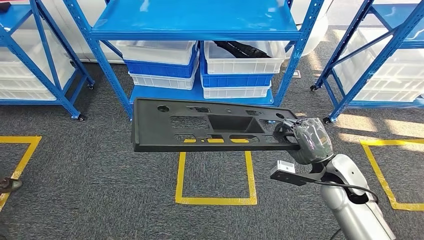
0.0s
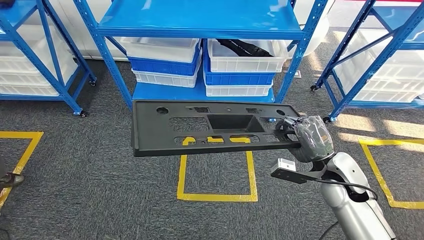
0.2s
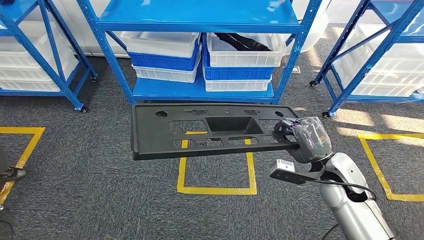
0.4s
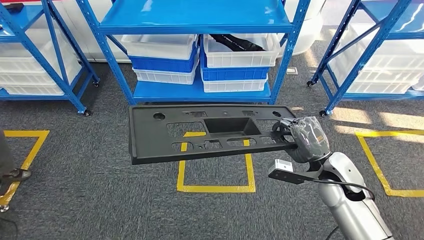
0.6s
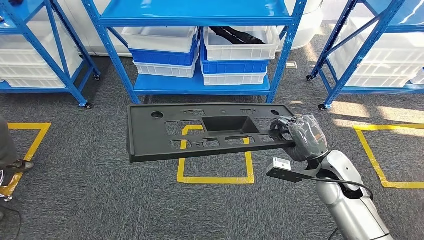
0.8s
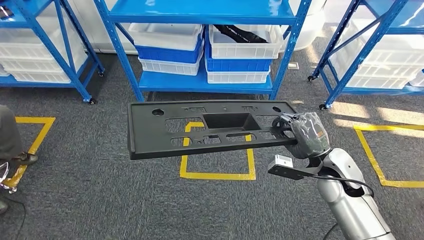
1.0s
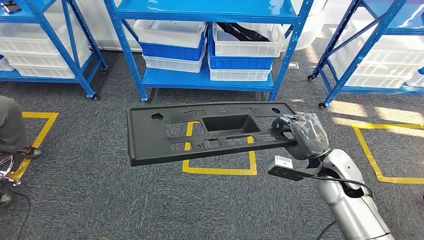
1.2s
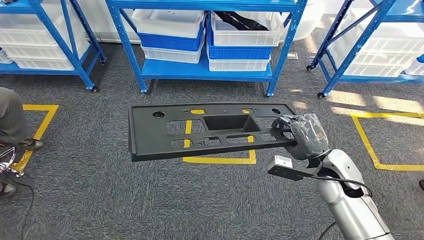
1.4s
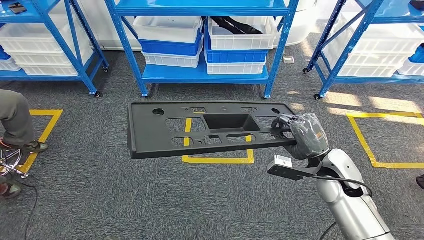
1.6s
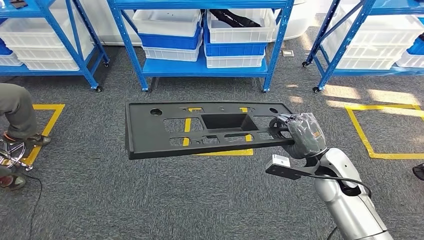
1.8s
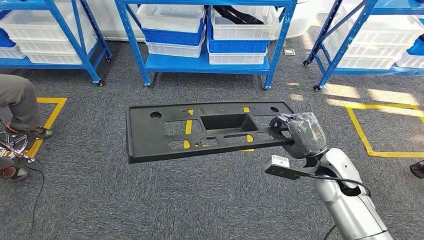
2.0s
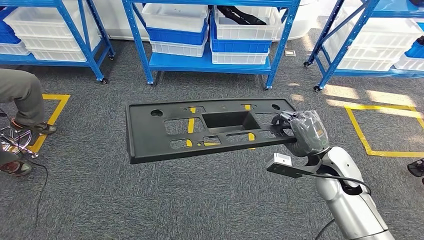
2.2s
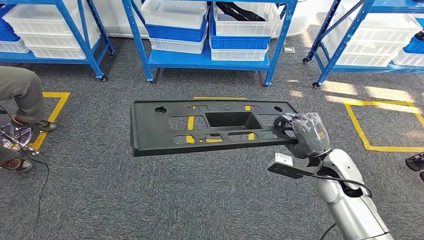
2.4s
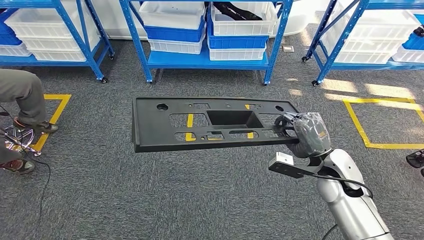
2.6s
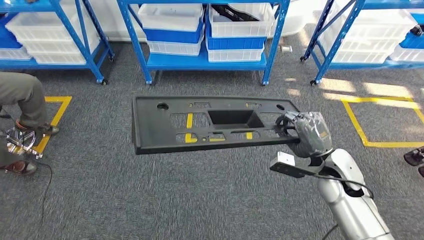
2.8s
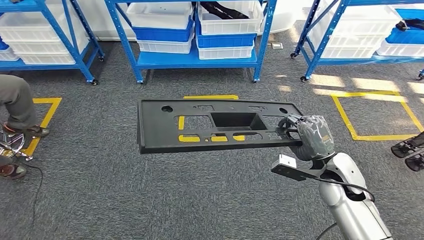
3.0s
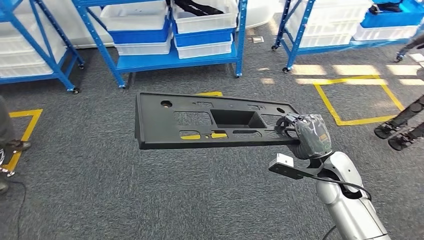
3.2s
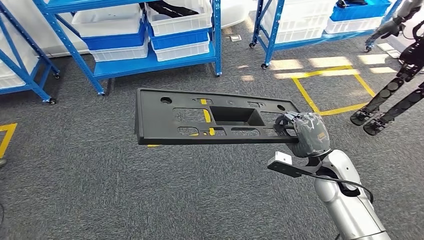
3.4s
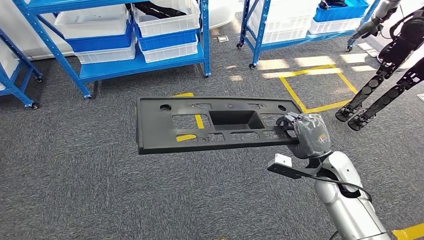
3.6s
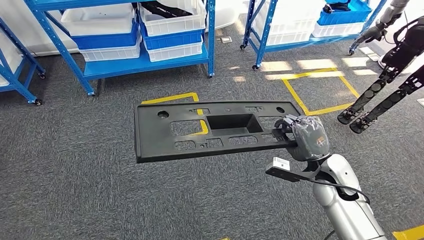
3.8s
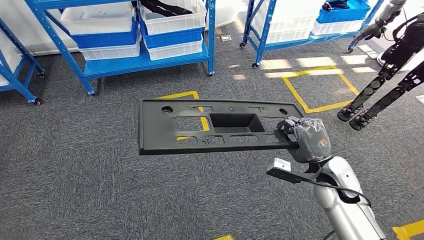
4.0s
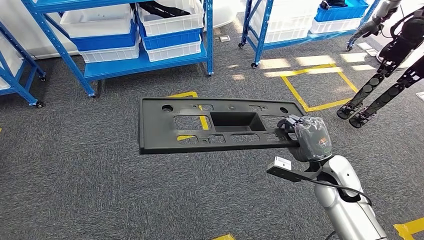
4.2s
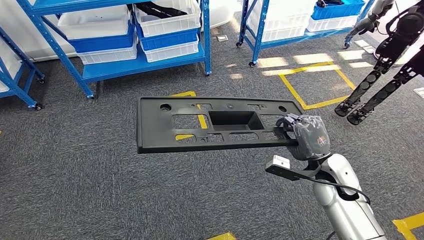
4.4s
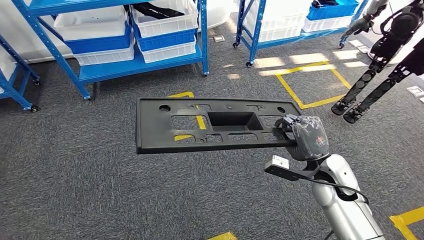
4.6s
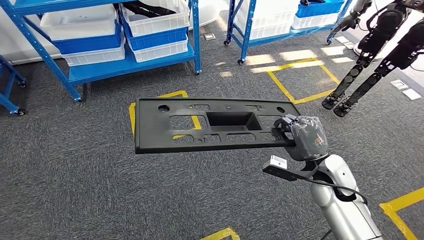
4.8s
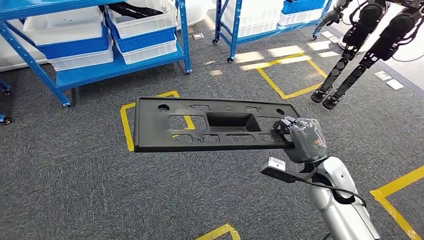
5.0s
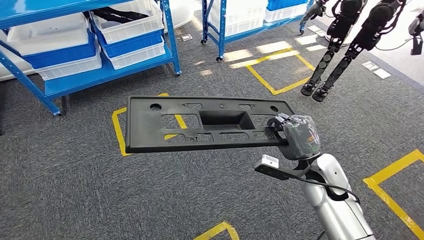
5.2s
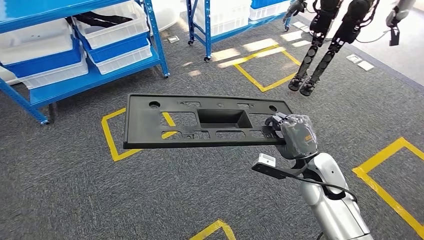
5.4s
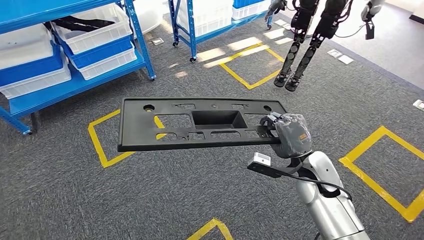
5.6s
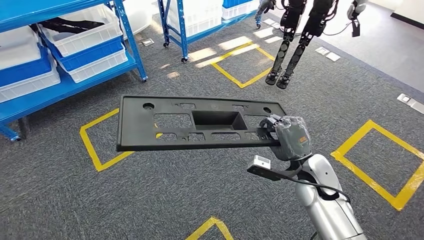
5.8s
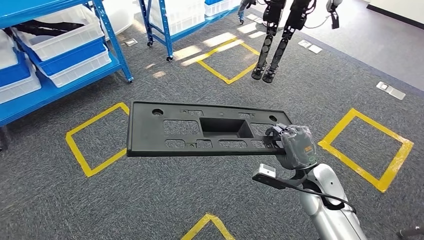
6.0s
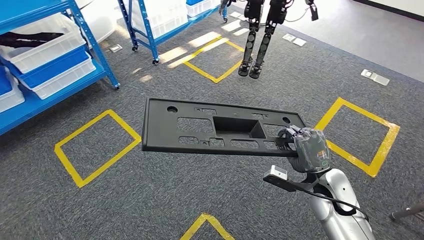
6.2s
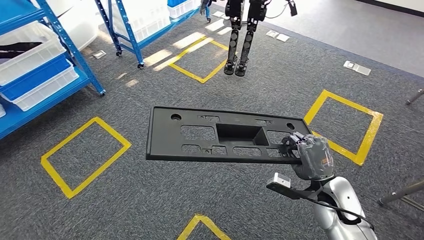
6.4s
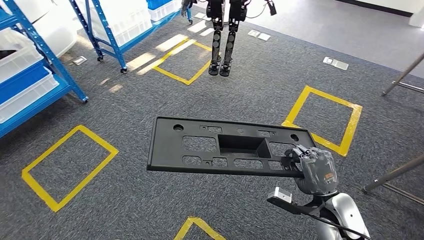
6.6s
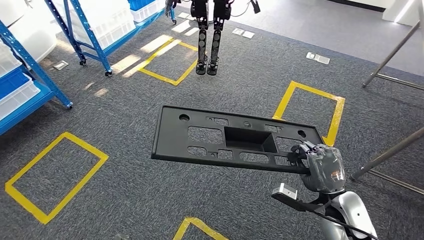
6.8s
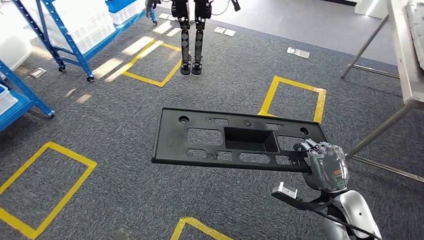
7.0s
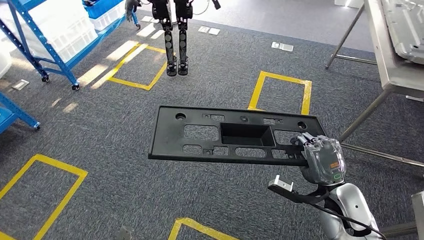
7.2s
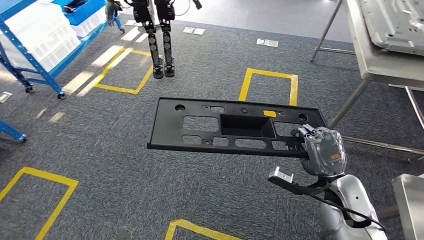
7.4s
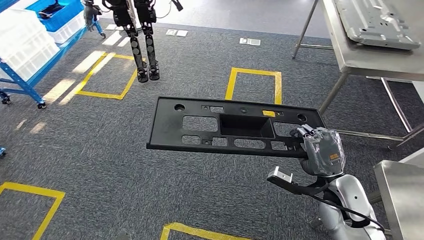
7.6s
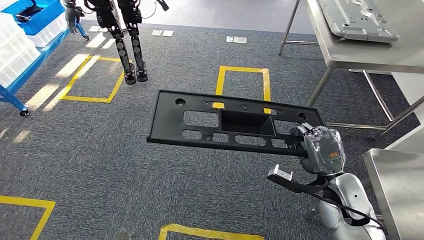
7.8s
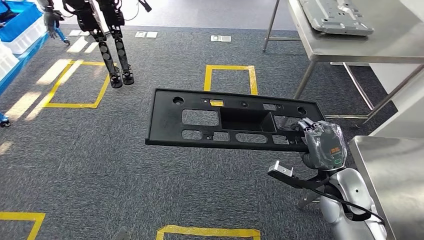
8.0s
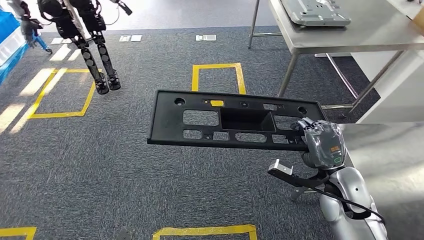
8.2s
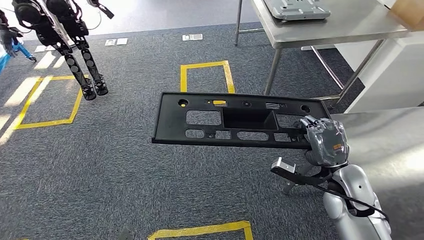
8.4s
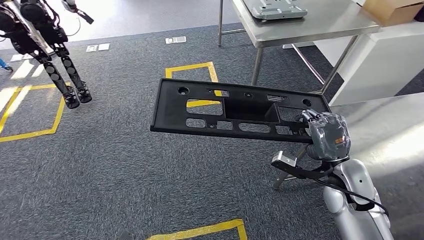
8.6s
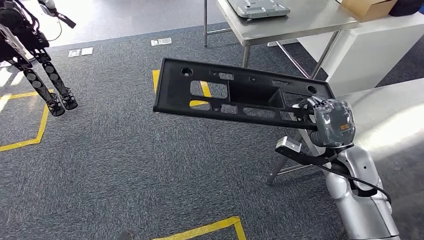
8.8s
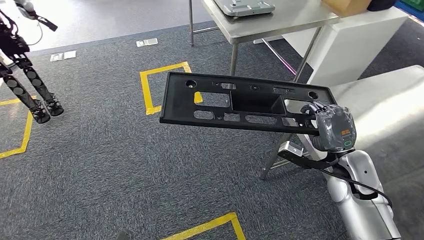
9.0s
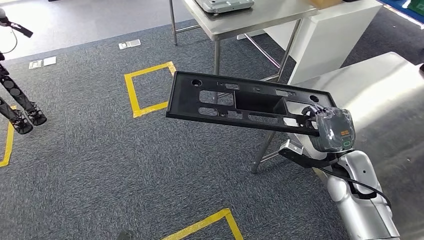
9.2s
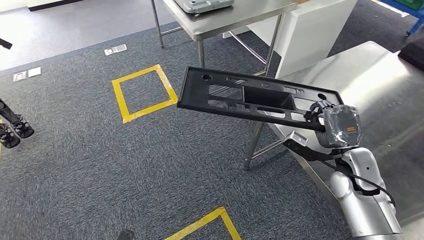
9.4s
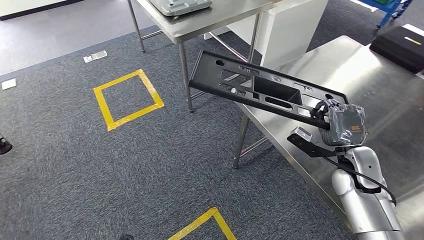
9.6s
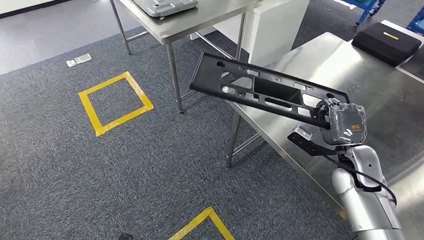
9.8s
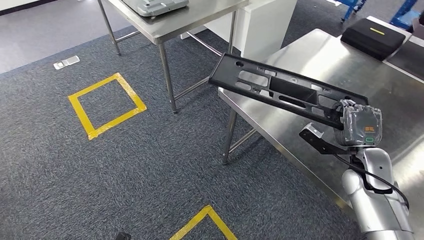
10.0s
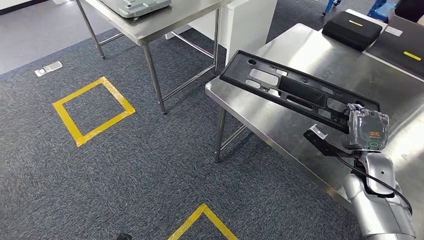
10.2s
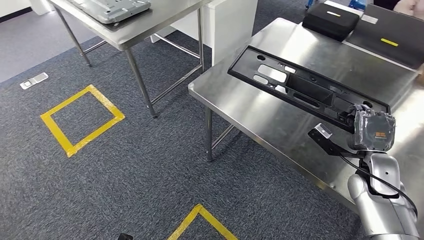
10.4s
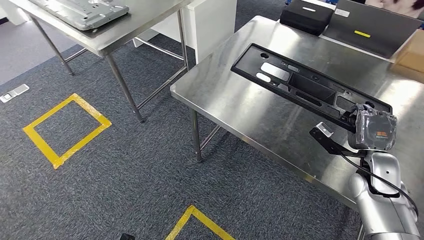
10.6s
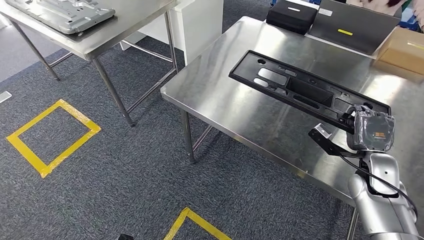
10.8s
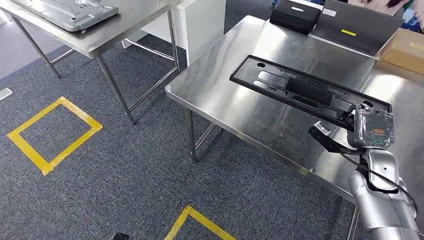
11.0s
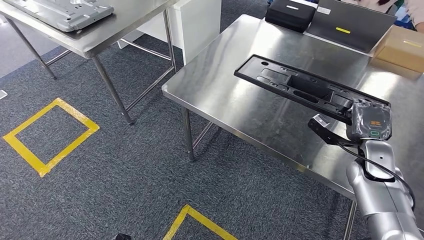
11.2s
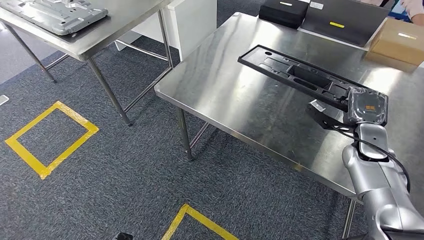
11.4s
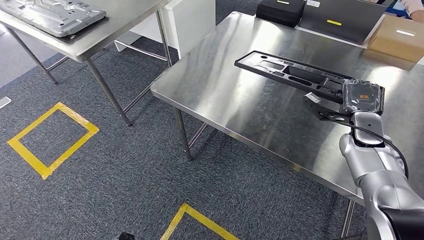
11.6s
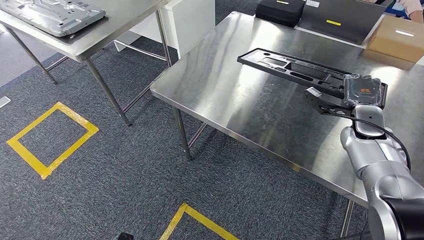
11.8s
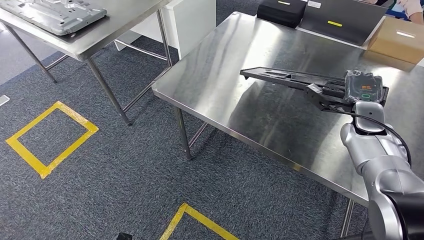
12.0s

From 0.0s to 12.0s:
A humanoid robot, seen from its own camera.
Step, from 0.0s to 9.4s: Move the large material to the workbench.

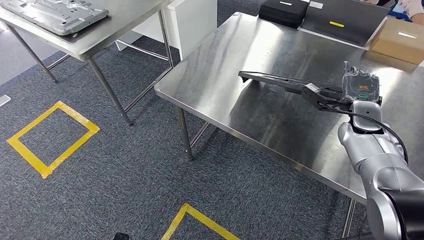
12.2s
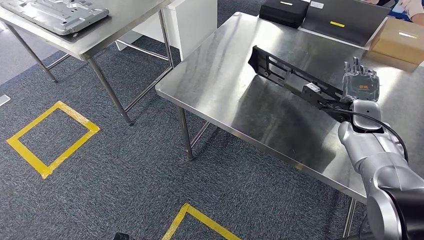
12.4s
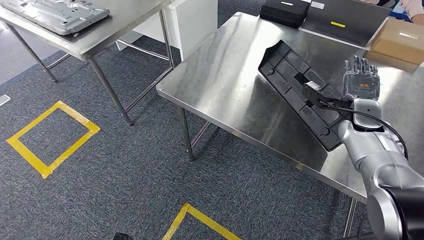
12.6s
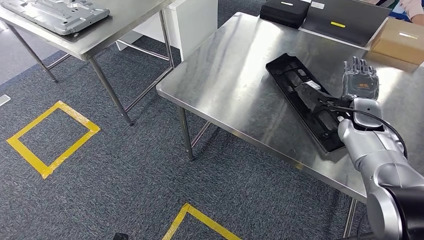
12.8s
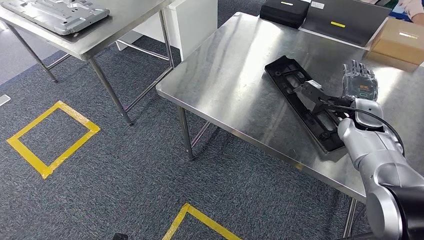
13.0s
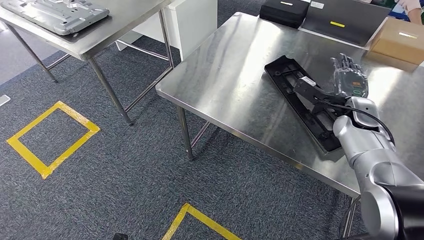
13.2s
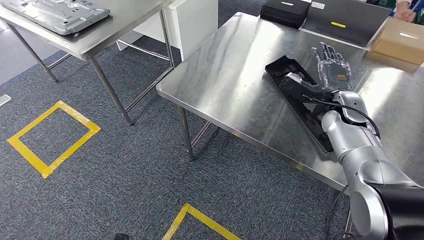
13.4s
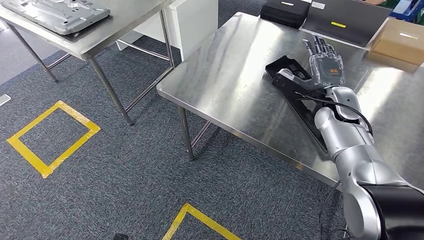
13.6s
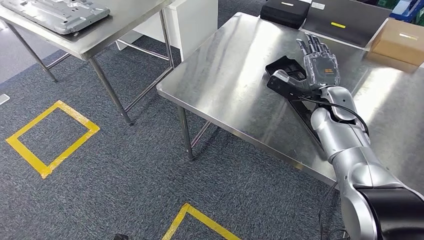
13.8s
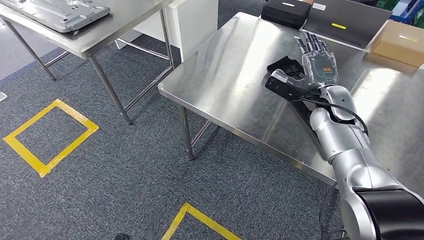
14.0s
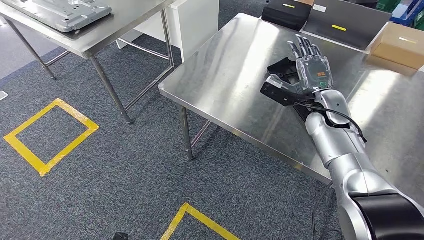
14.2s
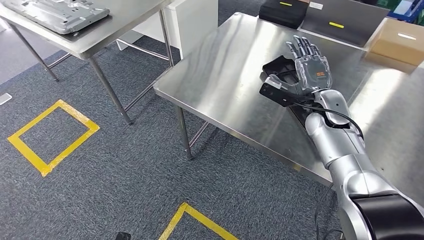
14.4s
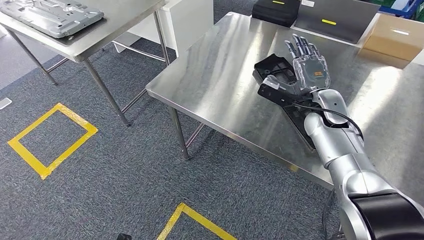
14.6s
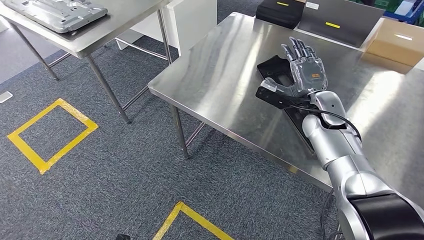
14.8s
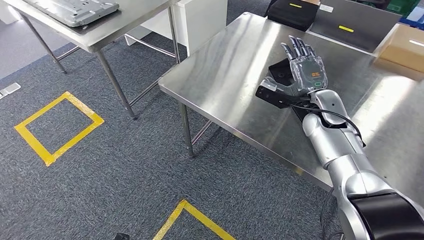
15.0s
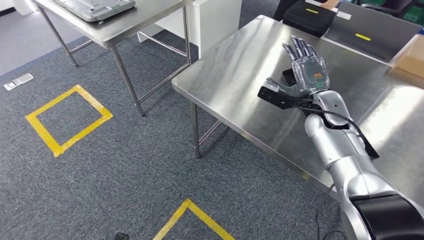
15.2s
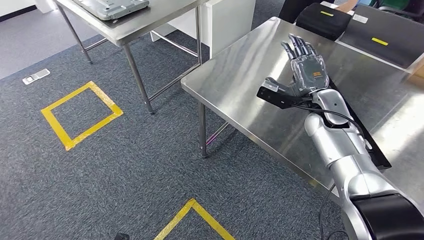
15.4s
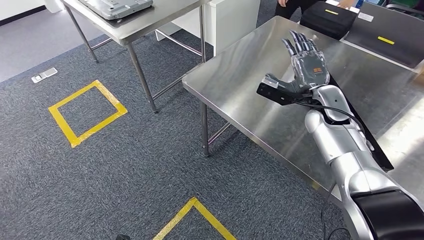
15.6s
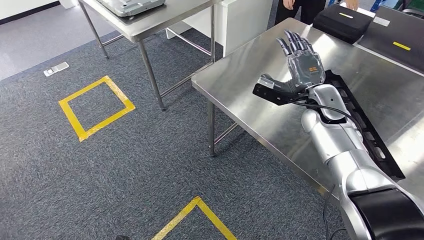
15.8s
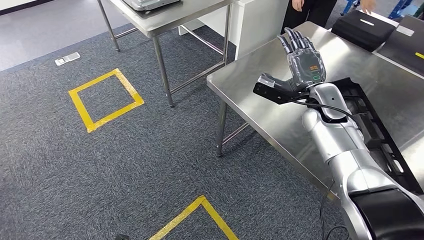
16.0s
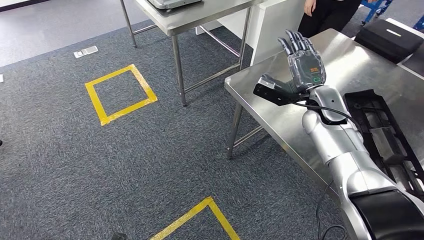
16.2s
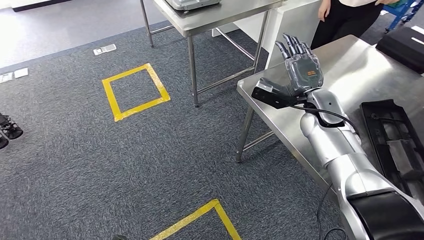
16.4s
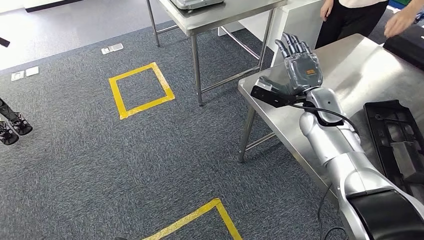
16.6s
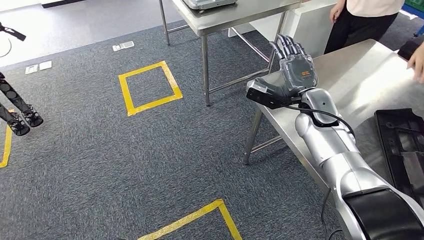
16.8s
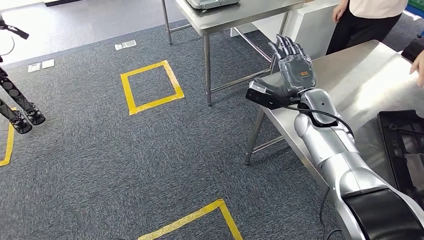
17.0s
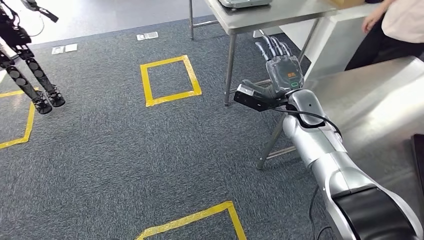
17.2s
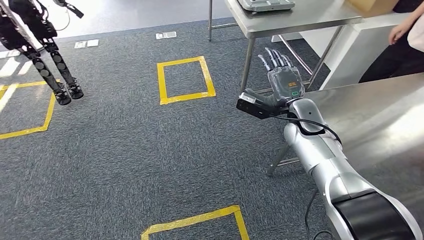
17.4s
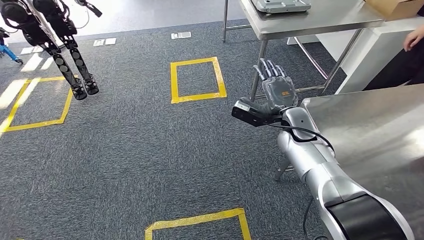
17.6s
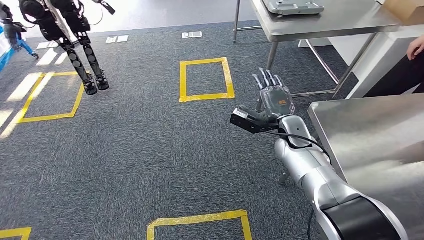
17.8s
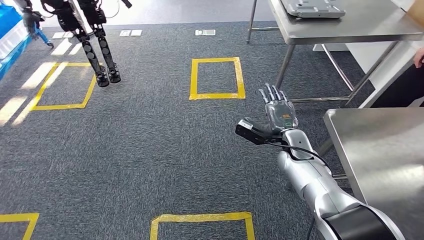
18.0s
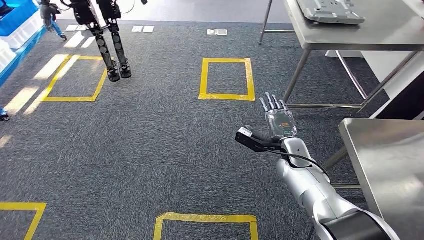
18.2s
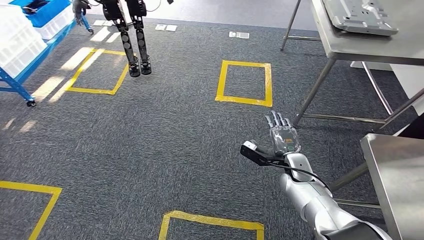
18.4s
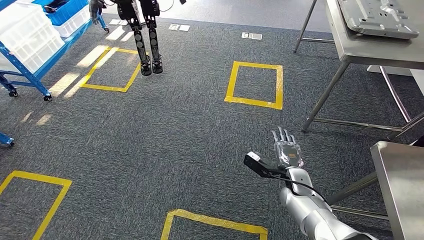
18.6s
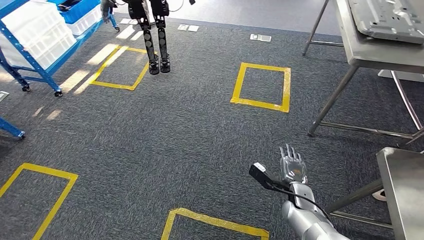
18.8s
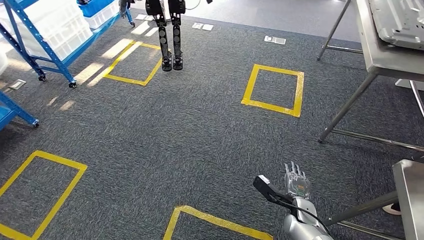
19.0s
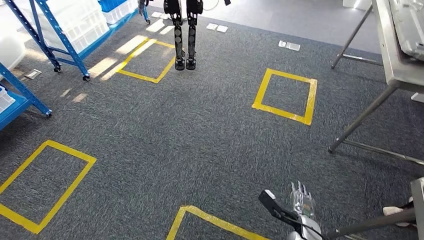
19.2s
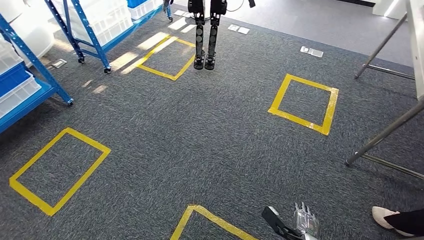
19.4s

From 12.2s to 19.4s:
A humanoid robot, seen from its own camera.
Step, from 12.2s to 14.6s: Insert the large material into the corresponding slot on the workbench.
From 12.2s to 13.6s: The right hand goes about 5 cm to the left.
